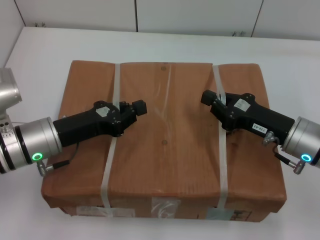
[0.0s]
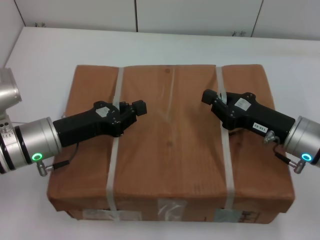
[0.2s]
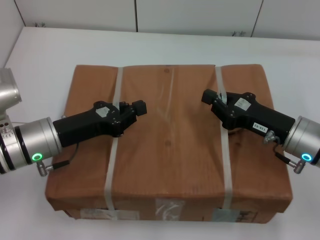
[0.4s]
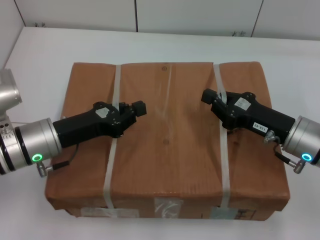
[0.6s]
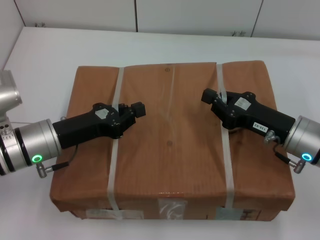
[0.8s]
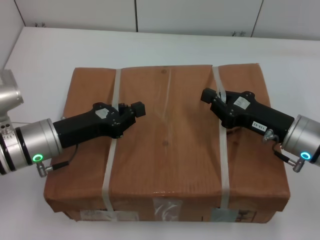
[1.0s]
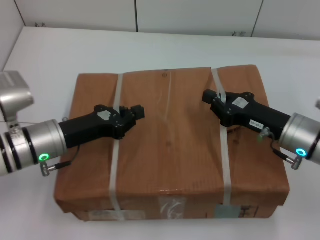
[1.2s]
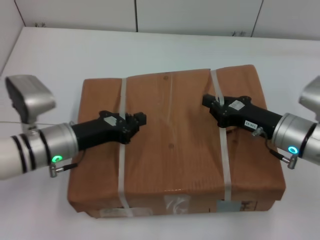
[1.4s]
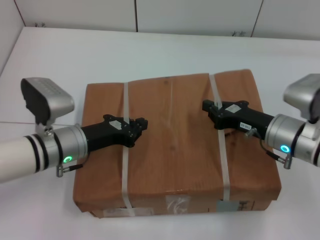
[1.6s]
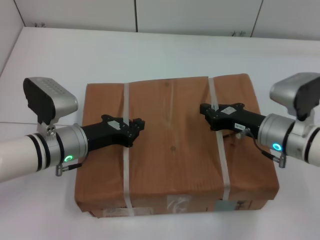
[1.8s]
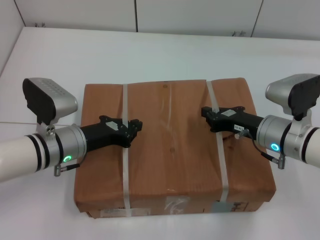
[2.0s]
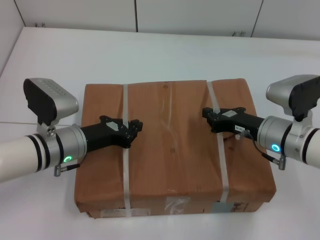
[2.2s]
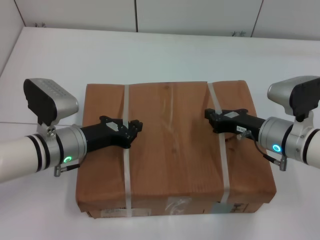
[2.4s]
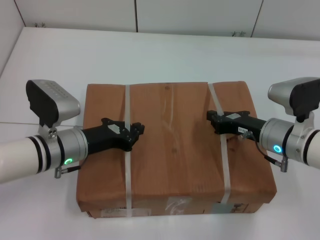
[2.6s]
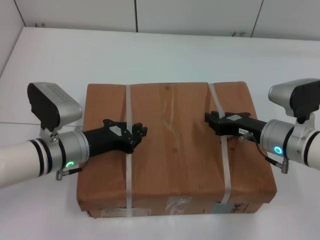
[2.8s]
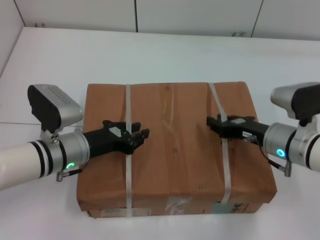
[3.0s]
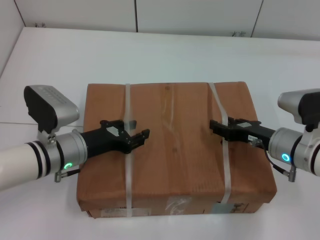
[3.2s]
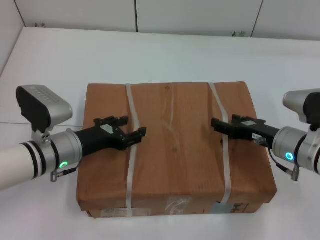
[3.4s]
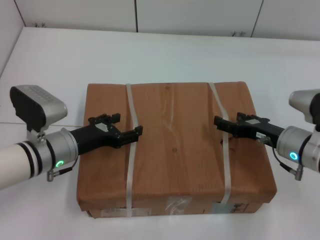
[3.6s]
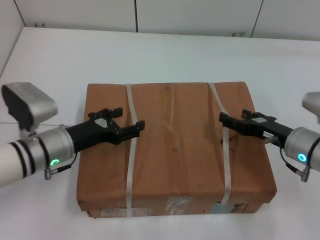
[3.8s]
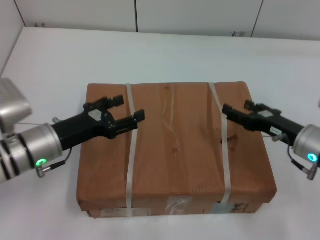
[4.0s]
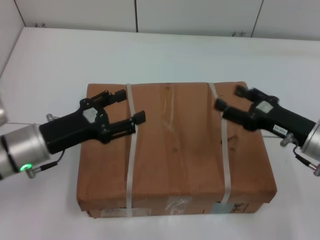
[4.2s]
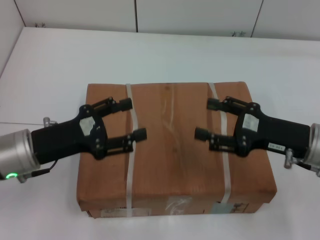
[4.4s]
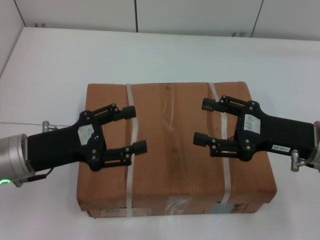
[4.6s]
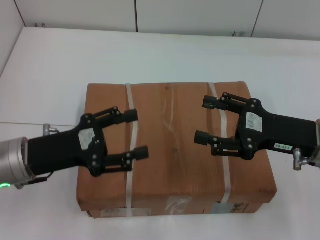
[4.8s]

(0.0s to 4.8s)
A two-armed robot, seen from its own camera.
Task of the whole recording: place the box on the table with both arms.
Step, 0.0s - 2.4s: Place the box on the table with left gripper.
Step, 0.0s - 2.4s: Place the box on the table with right gripper.
Step, 2.6s - 3.4s: Loosen the box on the table with left gripper.
Step, 2.6s - 3.4s: Loosen the box on the table with right gripper.
1.6s - 3.2s: The right gripper opens up.
3.2s - 4.8s: The right gripper shifts about 10 cm upward, and opens, while the left gripper is displaced upward and backward by about 10 cm, and opens up.
